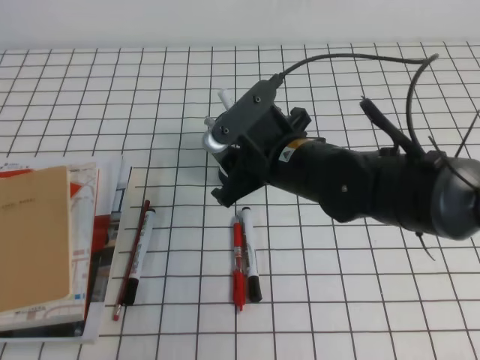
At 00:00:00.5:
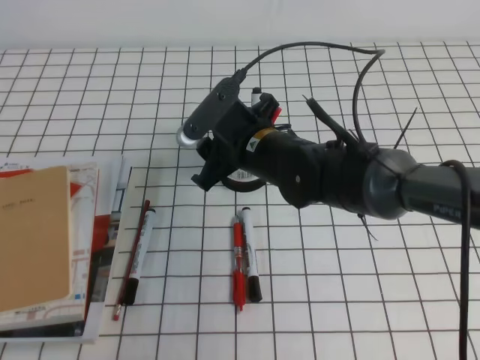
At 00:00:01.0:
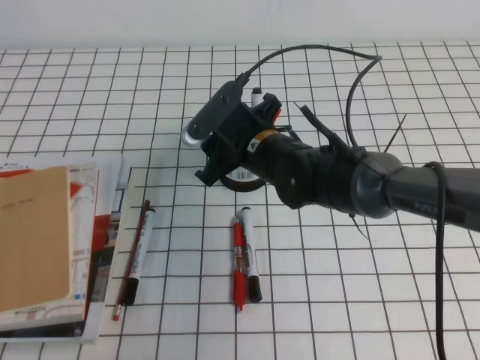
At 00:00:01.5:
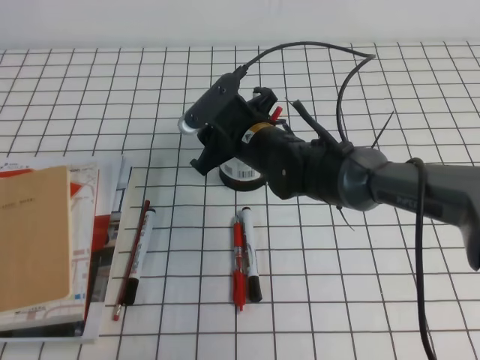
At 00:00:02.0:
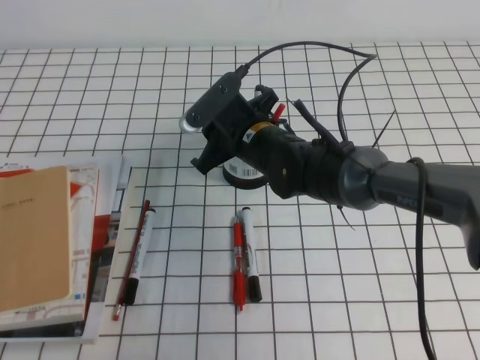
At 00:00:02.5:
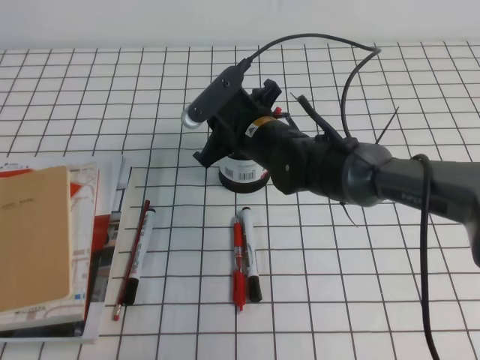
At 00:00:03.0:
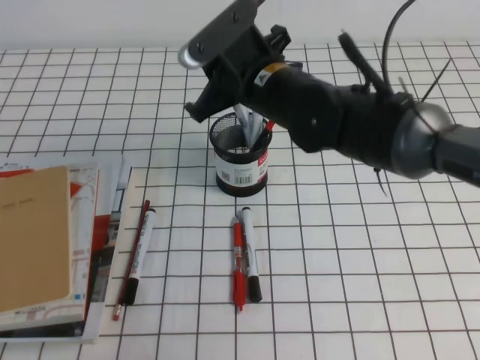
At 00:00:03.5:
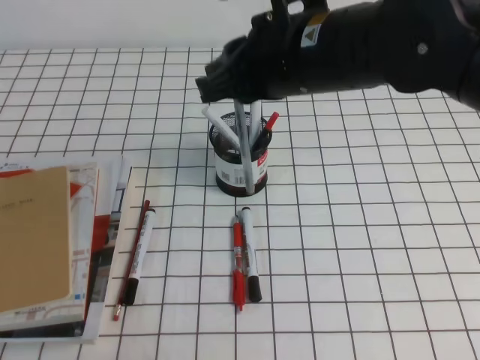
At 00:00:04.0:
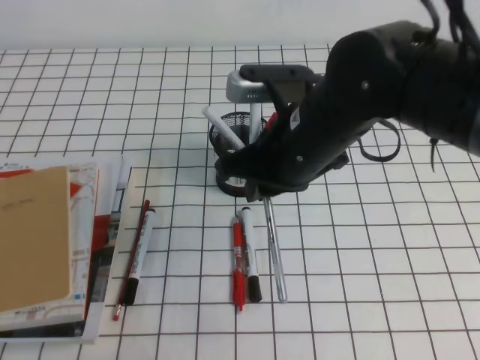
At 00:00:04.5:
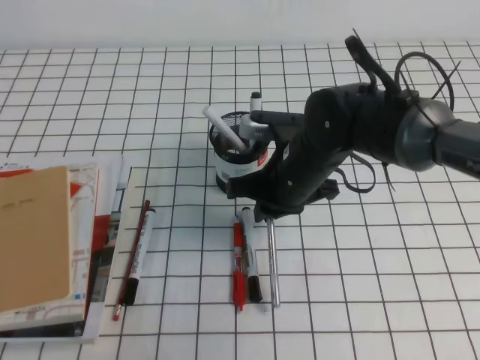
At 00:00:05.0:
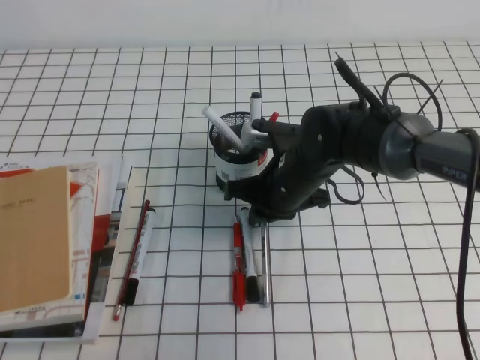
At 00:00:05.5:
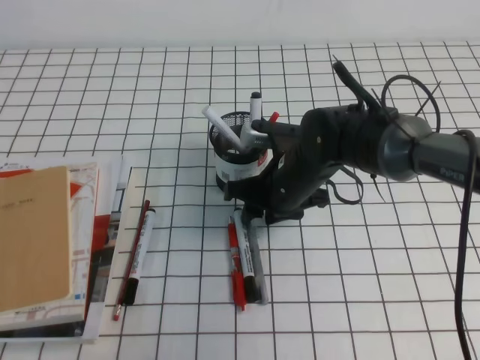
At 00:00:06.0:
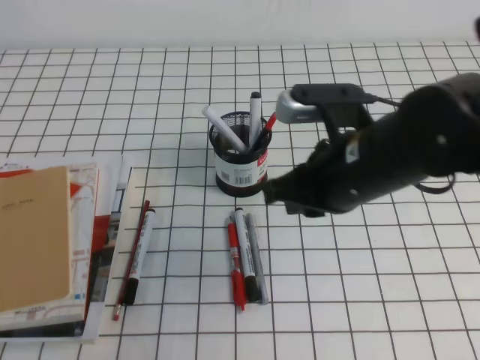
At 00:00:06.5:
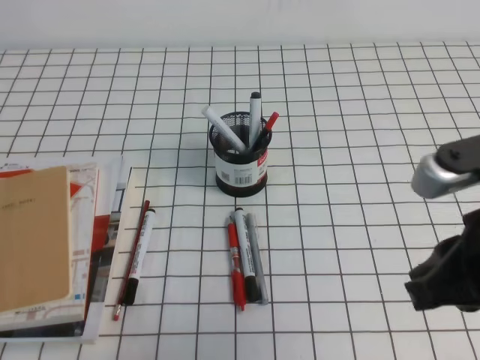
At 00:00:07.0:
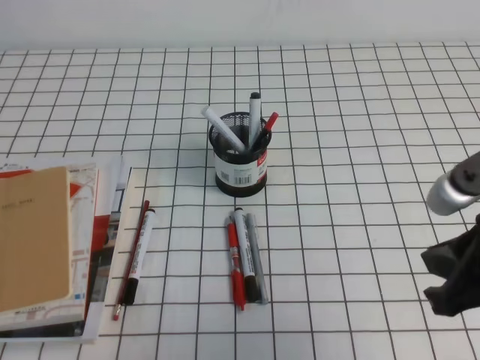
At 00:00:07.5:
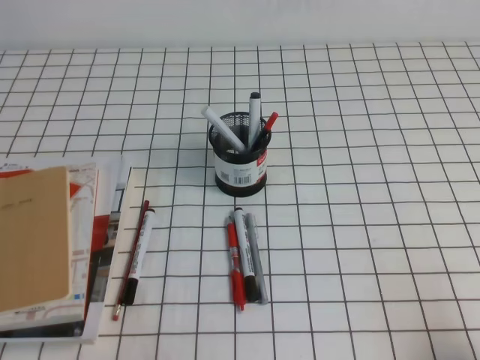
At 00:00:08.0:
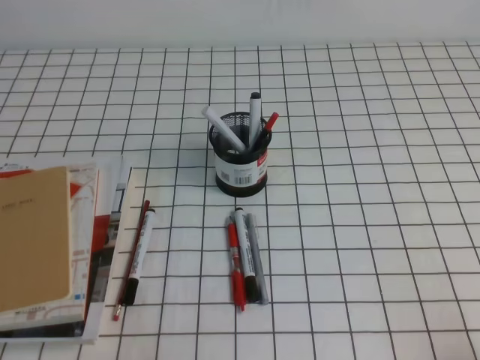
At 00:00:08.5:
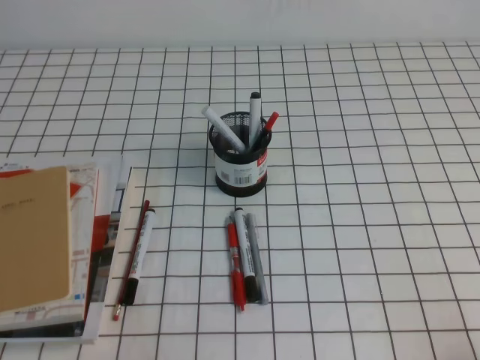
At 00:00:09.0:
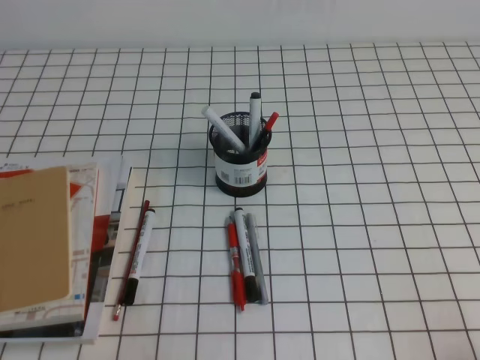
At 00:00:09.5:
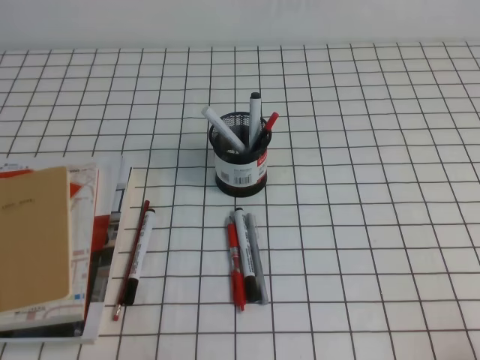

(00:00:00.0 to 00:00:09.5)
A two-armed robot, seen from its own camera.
Step, 00:00:00.0 - 00:00:09.5: Pick up the pen from the pen holder.
00:00:00.0 - 00:00:02.0: The right gripper moves forward, about 10 cm, and closes up.
00:00:02.0 - 00:00:04.0: The right gripper goes about 15 cm upward, backward and to the right, and closes up.
00:00:04.0 - 00:00:05.5: The right gripper travels downward and forward by about 15 cm, and opens.
00:00:05.5 - 00:00:07.5: The right gripper heads backward and to the right, covering approximately 35 cm, and closes its fingers.

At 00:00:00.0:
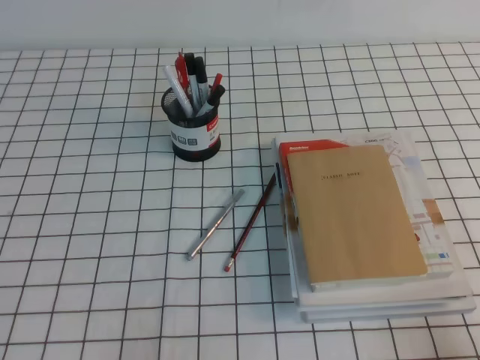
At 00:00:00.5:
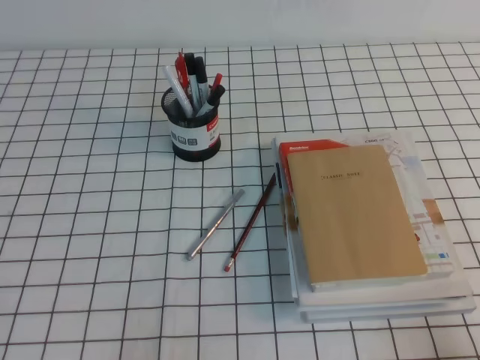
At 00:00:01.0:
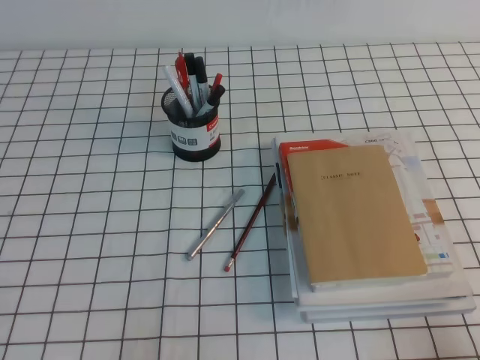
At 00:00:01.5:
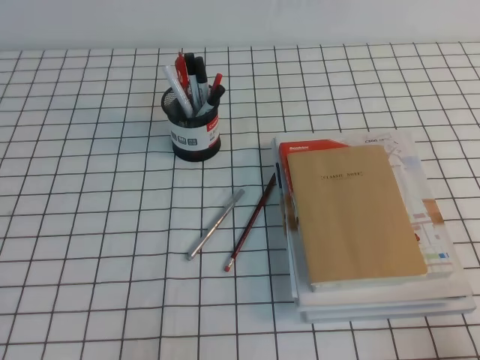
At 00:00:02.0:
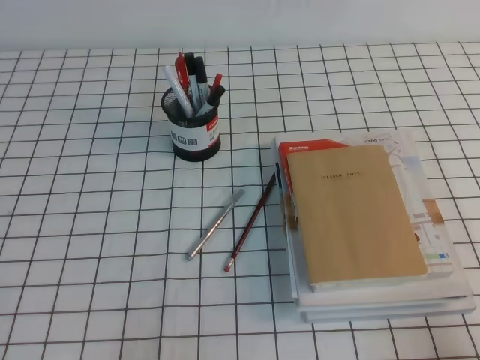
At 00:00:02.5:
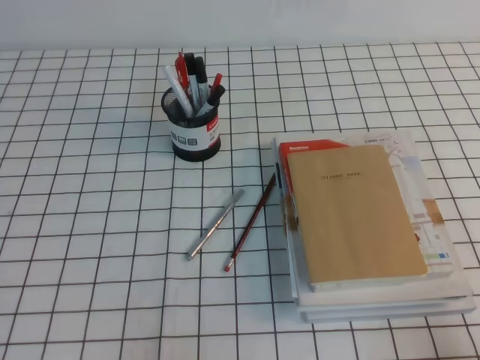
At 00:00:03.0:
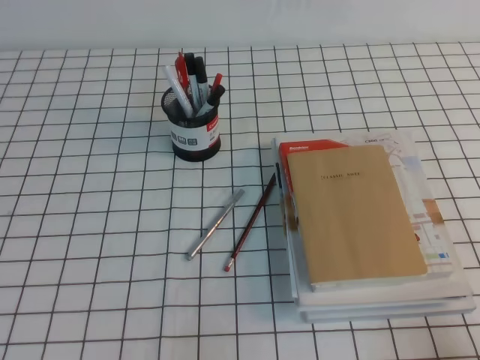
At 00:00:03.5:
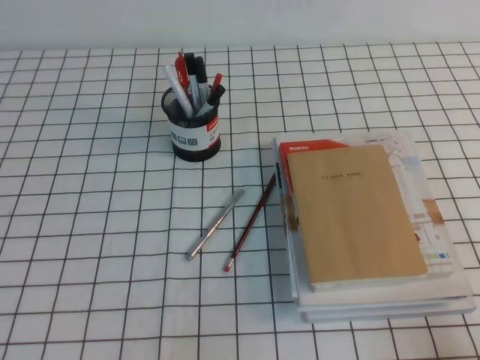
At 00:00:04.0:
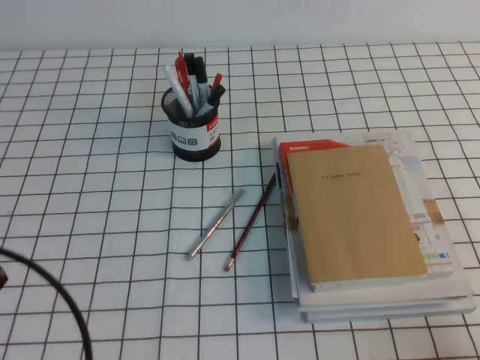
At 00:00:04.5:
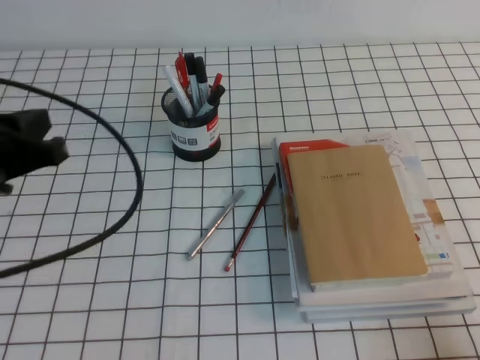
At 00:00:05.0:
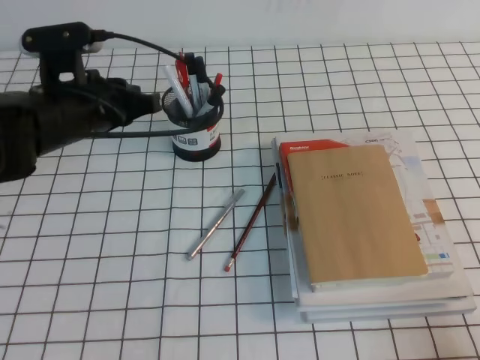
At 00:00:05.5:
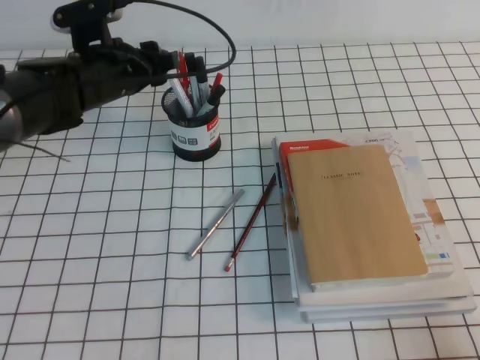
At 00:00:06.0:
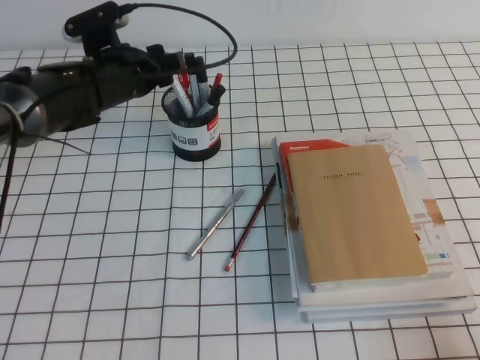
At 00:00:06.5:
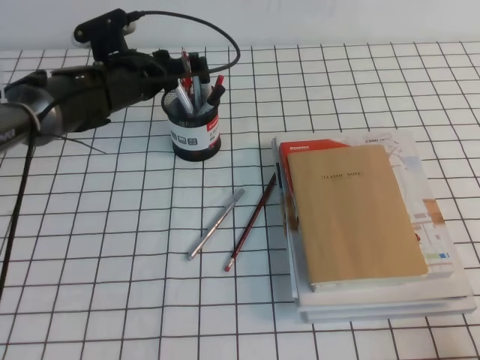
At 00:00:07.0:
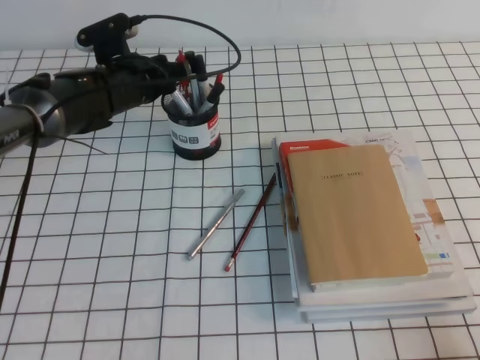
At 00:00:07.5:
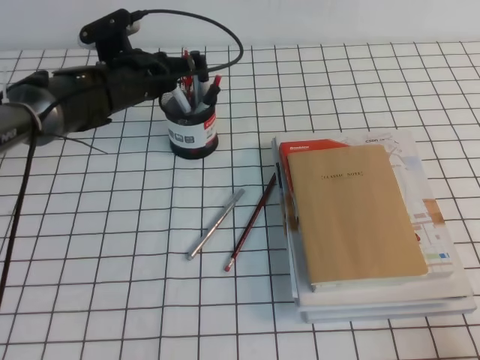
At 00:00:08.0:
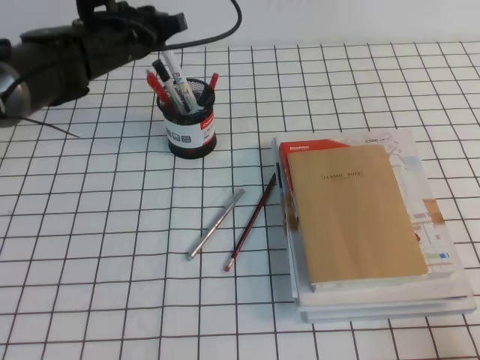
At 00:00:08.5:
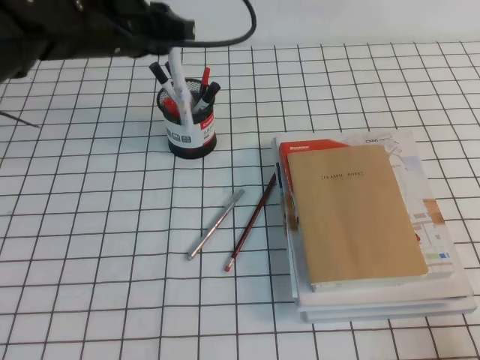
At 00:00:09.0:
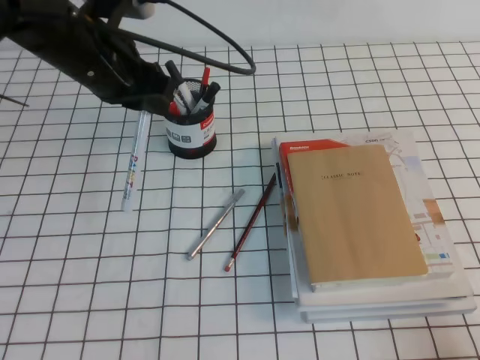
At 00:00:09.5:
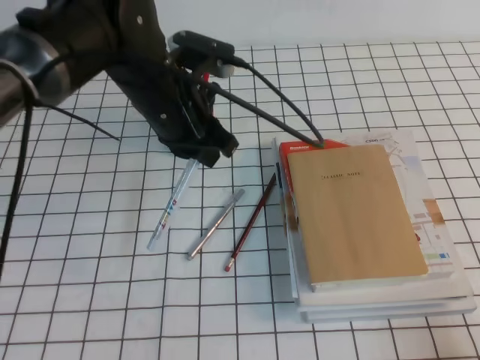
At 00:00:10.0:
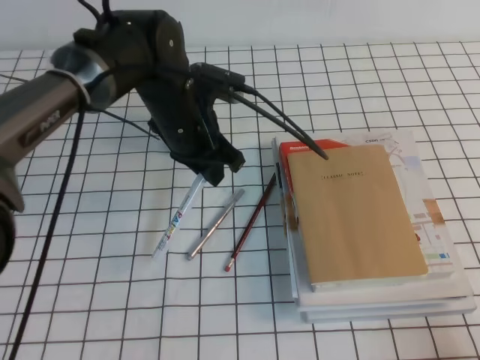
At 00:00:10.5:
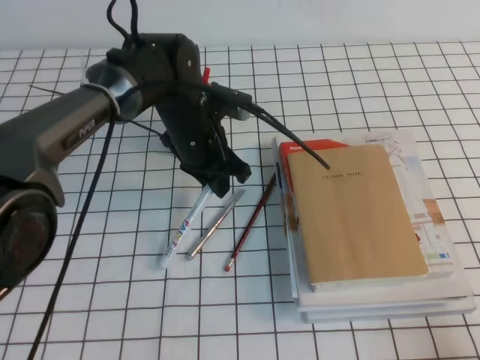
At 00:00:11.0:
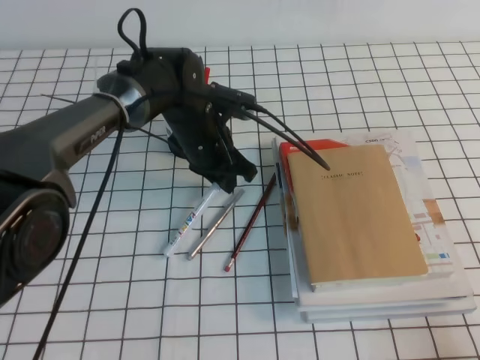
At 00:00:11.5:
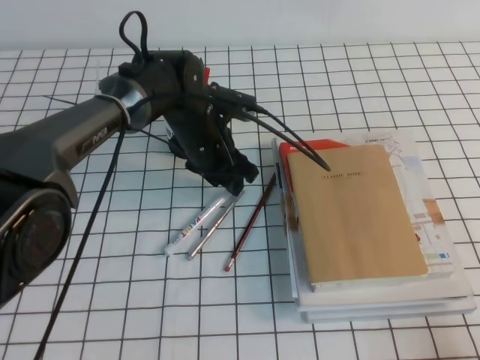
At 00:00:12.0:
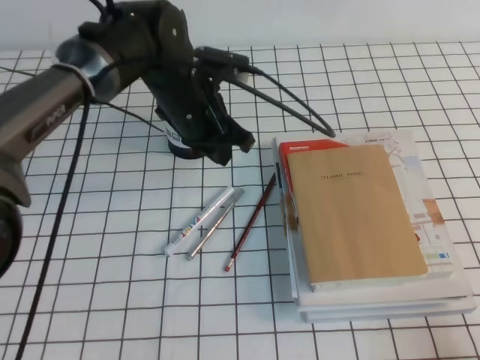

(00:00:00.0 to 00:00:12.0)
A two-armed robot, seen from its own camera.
00:00:00.0 - 00:00:02.0: The two grippers keep their place.
00:00:02.0 - 00:00:04.0: The left gripper travels upward by roughly 10 cm.
00:00:04.0 - 00:00:06.0: The left gripper goes about 35 cm forward, and opens up.
00:00:06.0 - 00:00:08.0: The left gripper closes.
00:00:08.0 - 00:00:10.0: The left gripper heads backward and to the right, covering roughly 10 cm.
00:00:10.0 - 00:00:12.0: The left gripper opens, then closes again.

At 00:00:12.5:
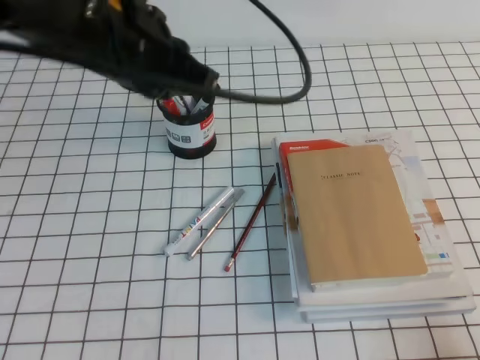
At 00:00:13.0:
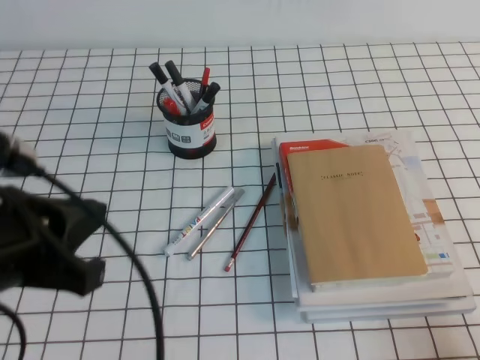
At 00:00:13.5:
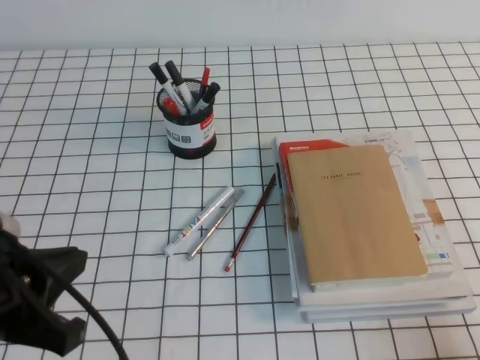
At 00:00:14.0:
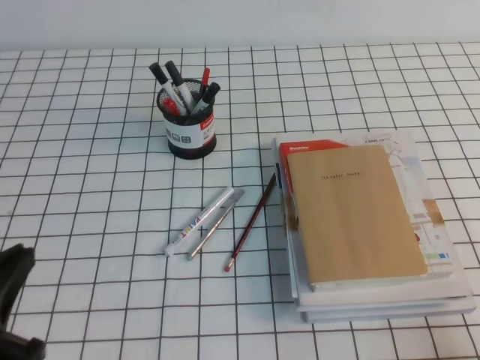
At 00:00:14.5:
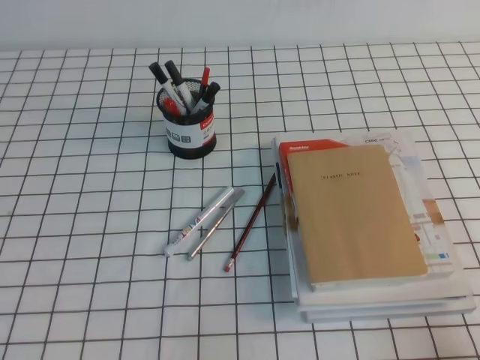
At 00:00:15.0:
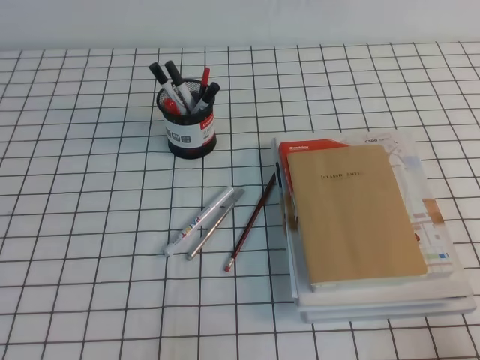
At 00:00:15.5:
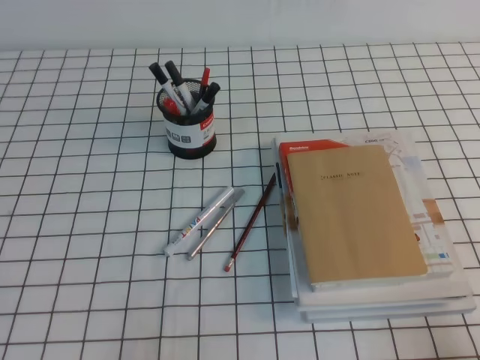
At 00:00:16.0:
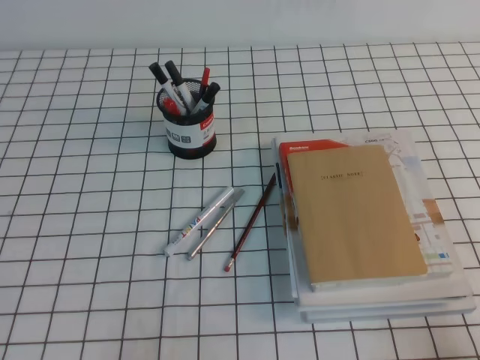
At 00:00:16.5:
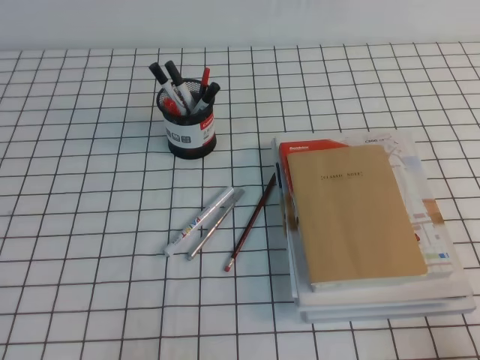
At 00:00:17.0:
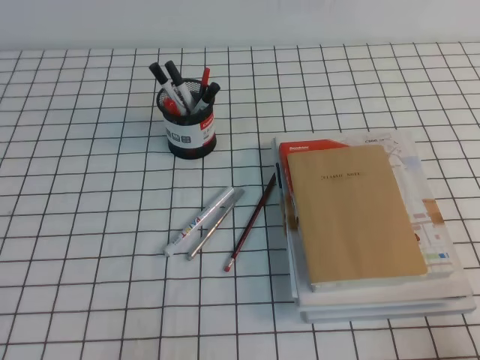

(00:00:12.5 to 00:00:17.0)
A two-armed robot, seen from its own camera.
Step, 00:00:12.5 - 00:00:17.0: Pick up the pen from the pen holder.
00:00:12.5 - 00:00:14.5: The left gripper travels backward, to the left and downward by roughly 35 cm.
